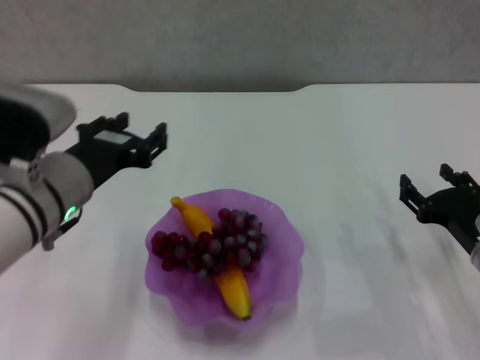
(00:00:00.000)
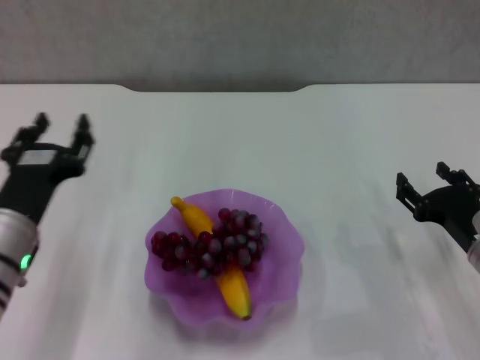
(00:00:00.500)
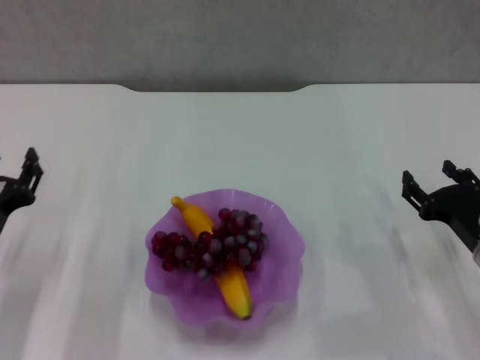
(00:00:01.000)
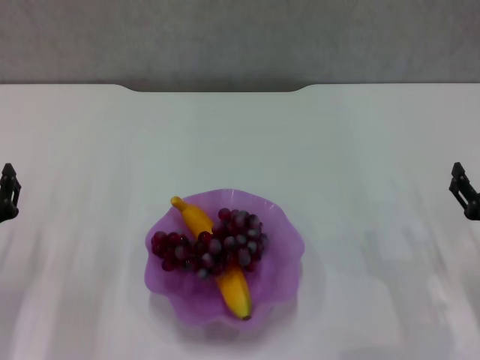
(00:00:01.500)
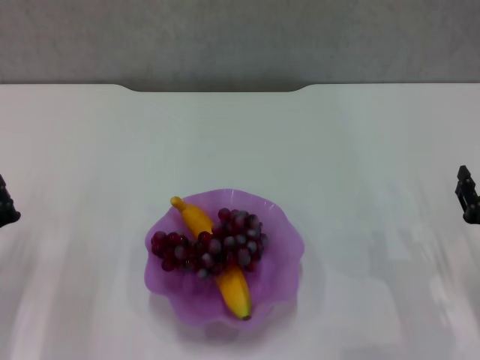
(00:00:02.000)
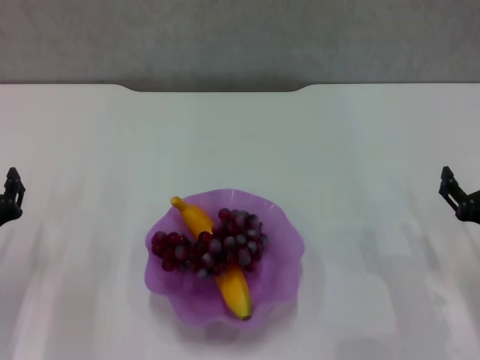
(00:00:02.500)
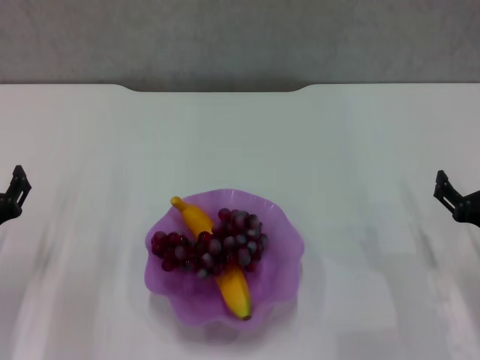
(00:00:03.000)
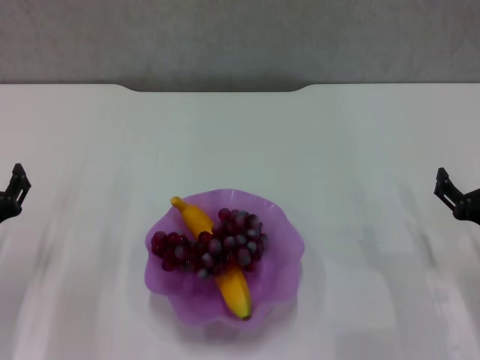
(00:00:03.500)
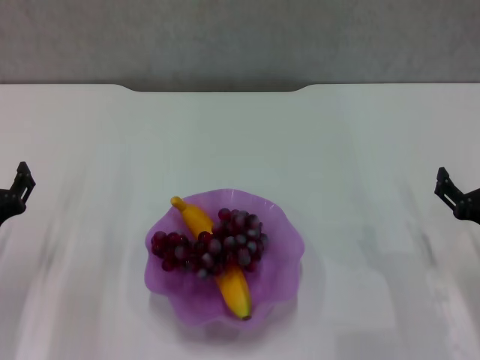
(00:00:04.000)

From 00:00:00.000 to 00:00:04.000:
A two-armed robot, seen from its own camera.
From 00:00:00.000 to 00:00:02.000: The left gripper moves downward and to the left, approximately 15 cm, and closes its fingers.
From 00:00:02.000 to 00:00:04.000: The right gripper opens its fingers. The left gripper opens its fingers.
